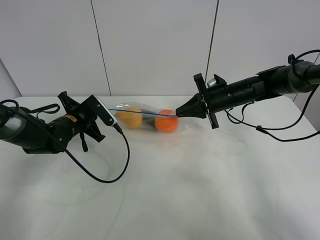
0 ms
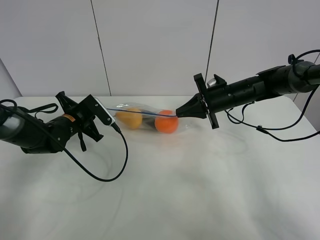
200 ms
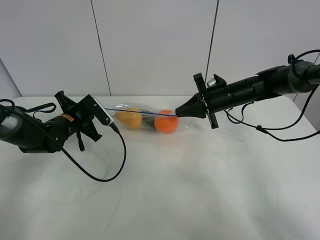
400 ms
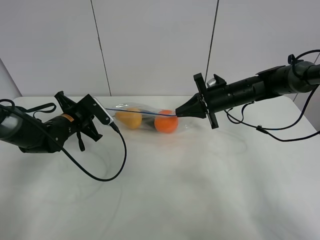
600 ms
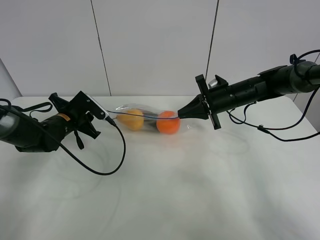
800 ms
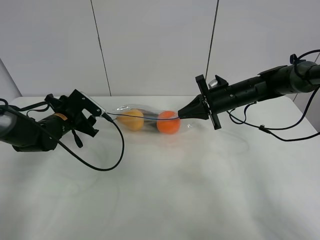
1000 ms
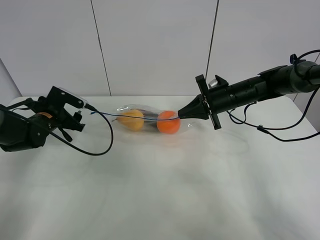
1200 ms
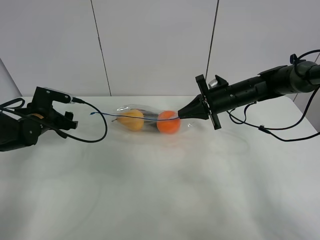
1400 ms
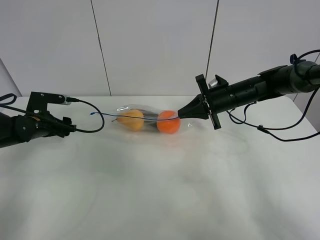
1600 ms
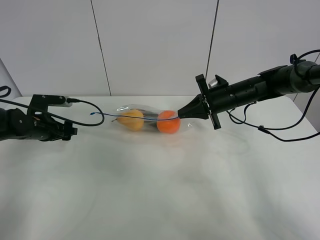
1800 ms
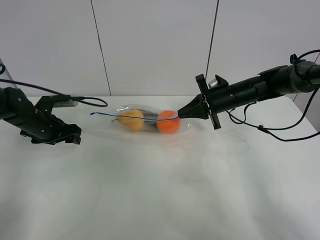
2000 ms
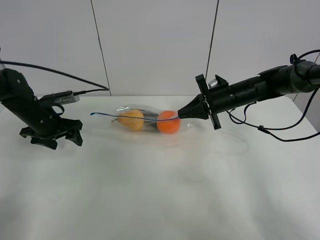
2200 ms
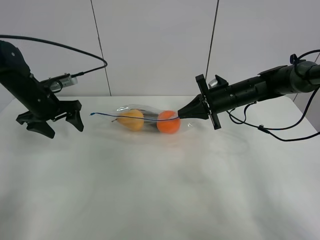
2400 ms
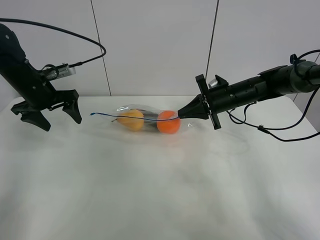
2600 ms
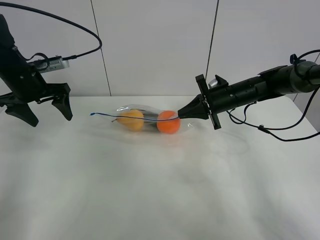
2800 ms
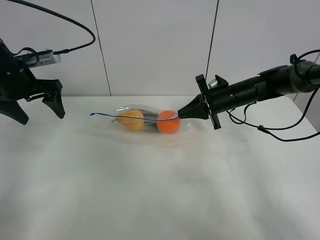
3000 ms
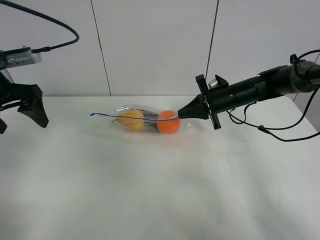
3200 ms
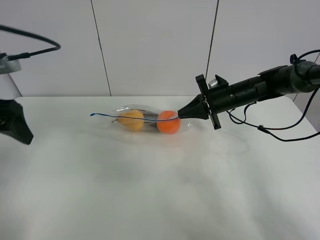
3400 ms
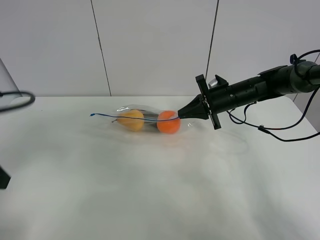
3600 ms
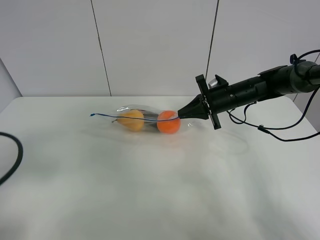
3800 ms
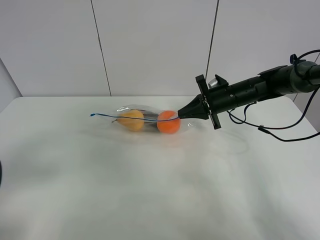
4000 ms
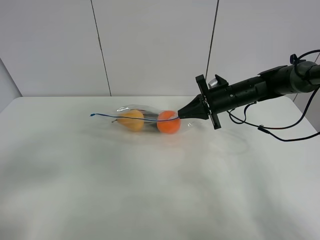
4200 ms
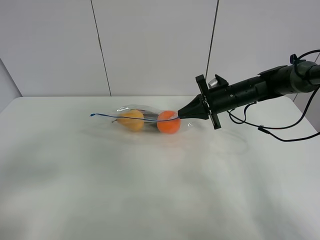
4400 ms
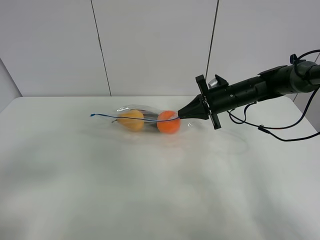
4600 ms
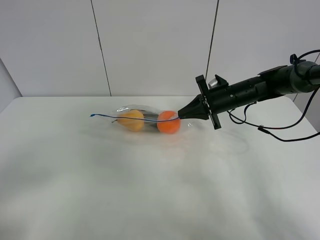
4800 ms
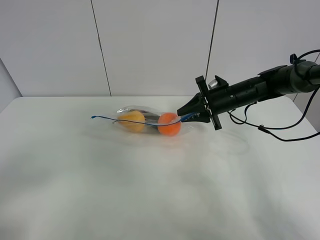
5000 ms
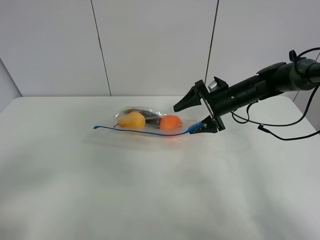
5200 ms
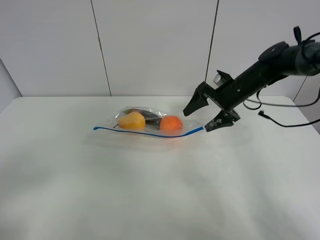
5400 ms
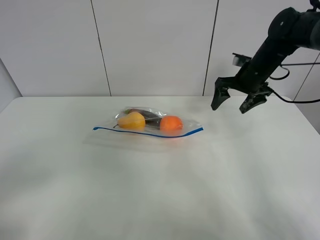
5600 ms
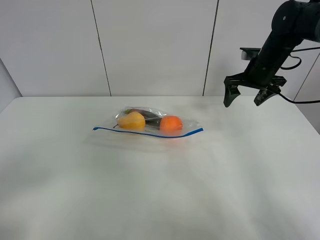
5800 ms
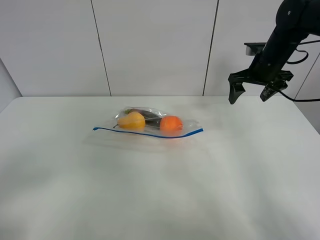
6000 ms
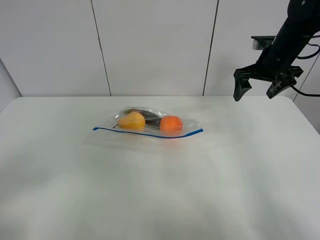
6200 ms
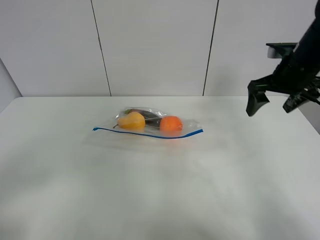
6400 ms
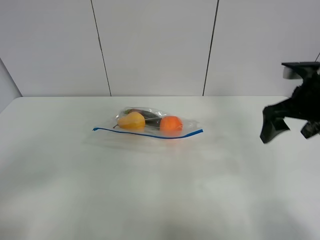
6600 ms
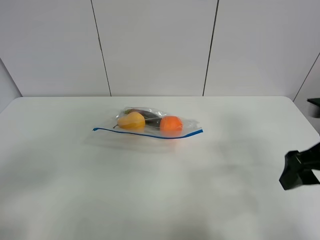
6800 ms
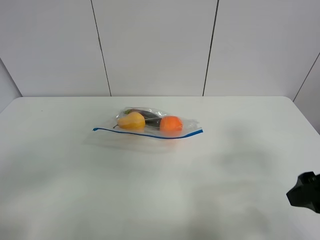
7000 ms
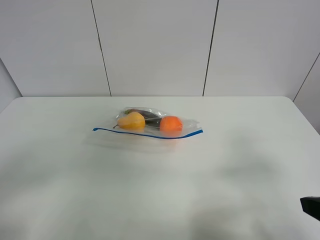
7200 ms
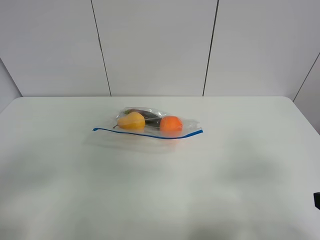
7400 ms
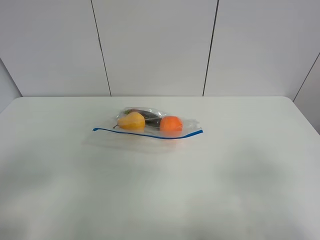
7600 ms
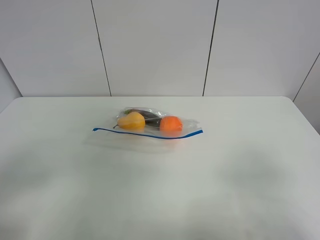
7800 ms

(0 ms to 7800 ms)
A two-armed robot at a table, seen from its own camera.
Step, 1000 ms - 5800 ms: Place the fruit bag with right gripper.
0 ms - 1600 ms: The left gripper travels to the left by roughly 10 cm, and opens its fingers.
1600 ms - 3200 ms: The left gripper goes approximately 20 cm upward and backward.
3200 ms - 4600 ms: The left gripper shifts approximately 25 cm backward.
4600 ms - 6200 ms: The right gripper heads upward and to the right, covering roughly 15 cm, and opens.
6200 ms - 7800 ms: The right gripper heads backward, covering approximately 40 cm.

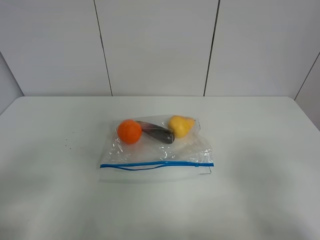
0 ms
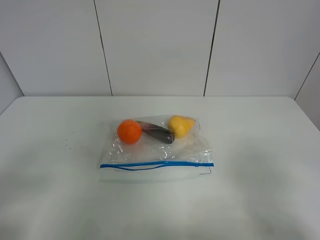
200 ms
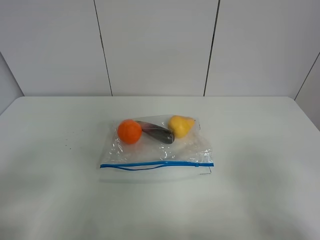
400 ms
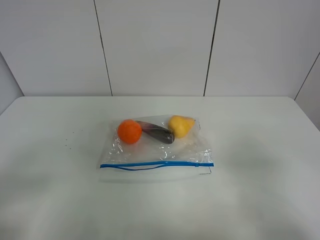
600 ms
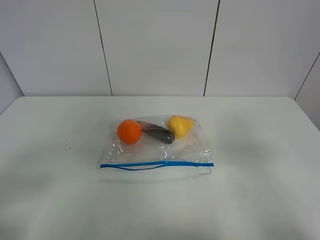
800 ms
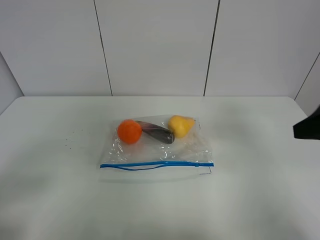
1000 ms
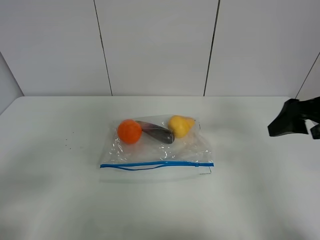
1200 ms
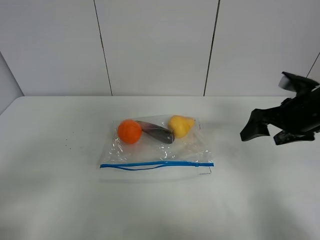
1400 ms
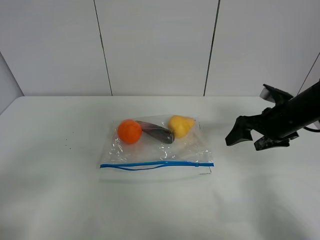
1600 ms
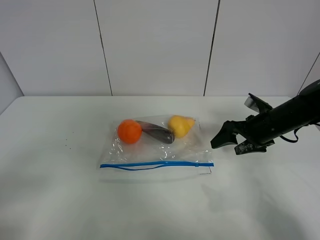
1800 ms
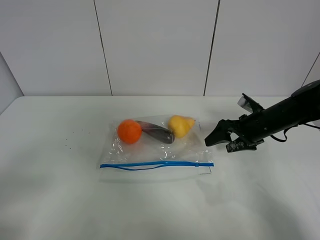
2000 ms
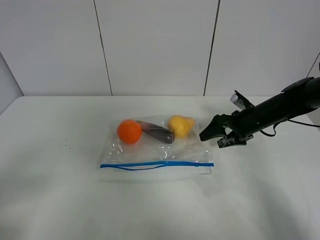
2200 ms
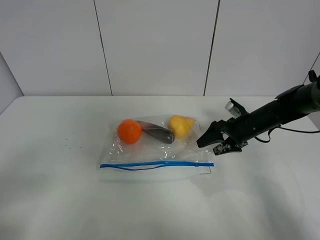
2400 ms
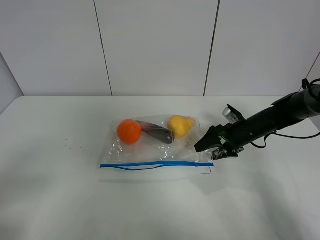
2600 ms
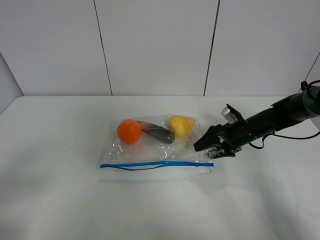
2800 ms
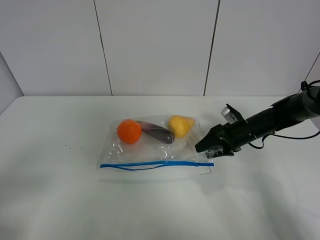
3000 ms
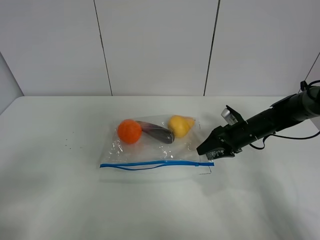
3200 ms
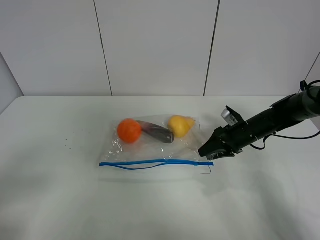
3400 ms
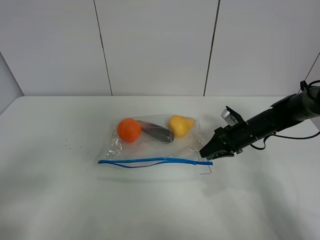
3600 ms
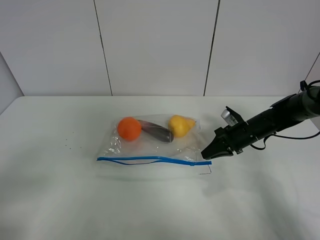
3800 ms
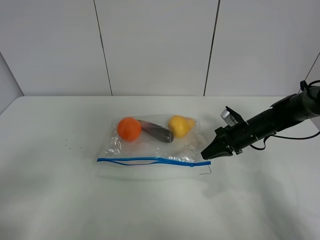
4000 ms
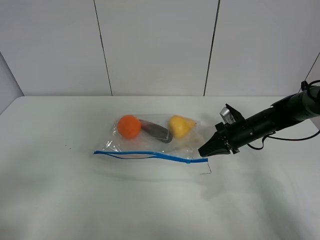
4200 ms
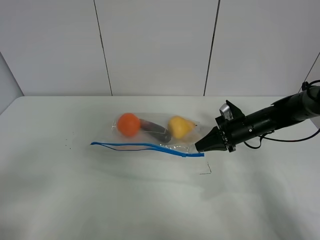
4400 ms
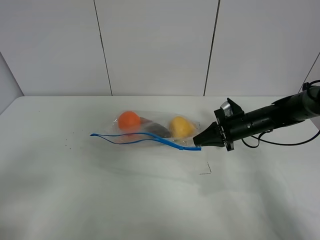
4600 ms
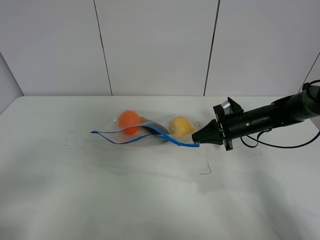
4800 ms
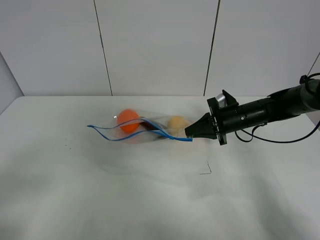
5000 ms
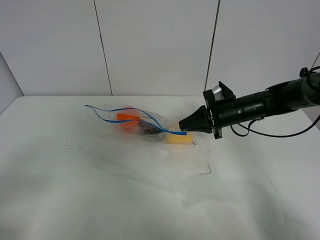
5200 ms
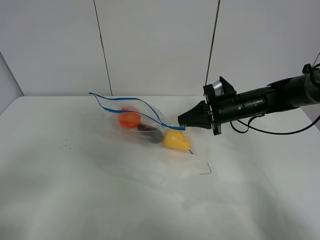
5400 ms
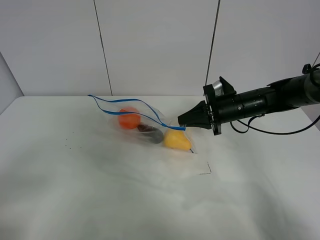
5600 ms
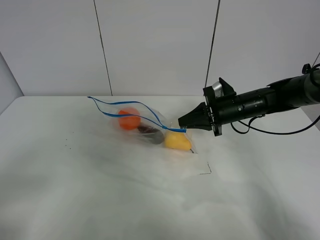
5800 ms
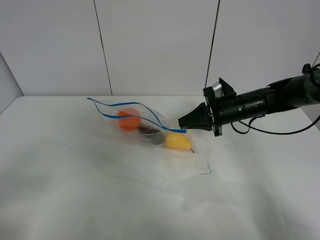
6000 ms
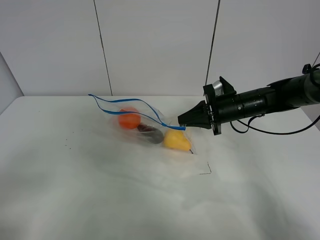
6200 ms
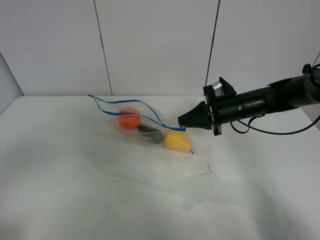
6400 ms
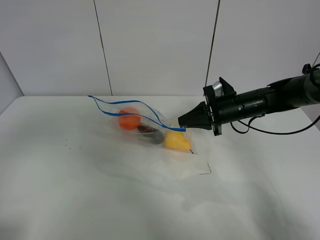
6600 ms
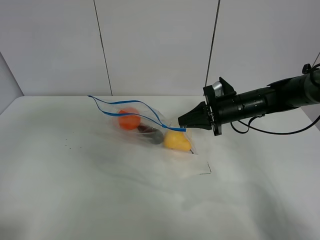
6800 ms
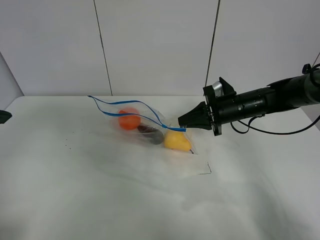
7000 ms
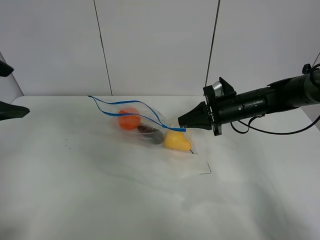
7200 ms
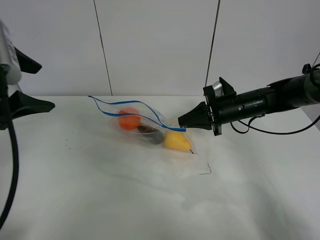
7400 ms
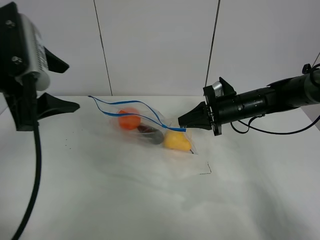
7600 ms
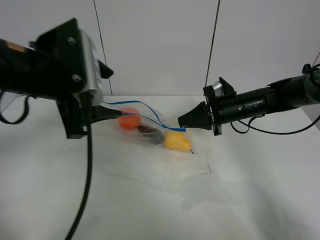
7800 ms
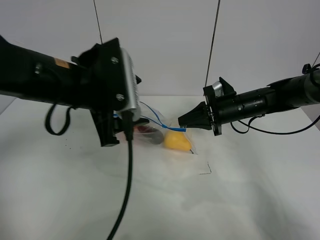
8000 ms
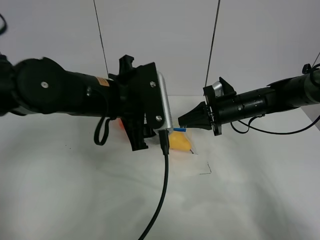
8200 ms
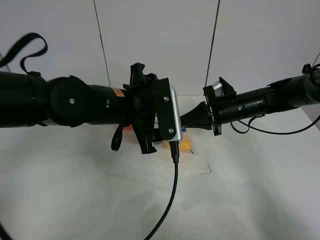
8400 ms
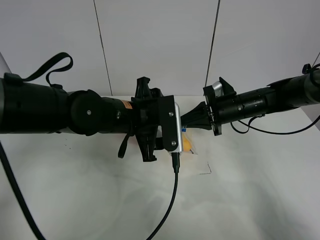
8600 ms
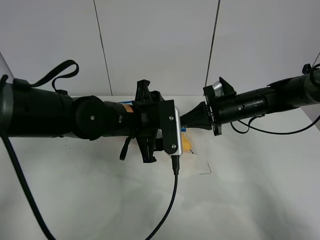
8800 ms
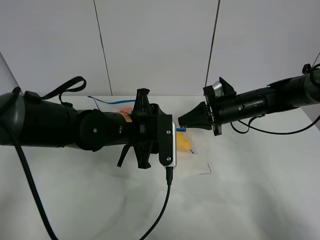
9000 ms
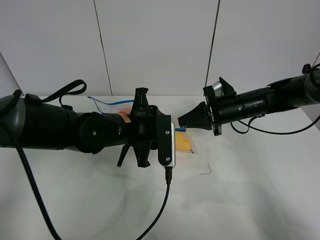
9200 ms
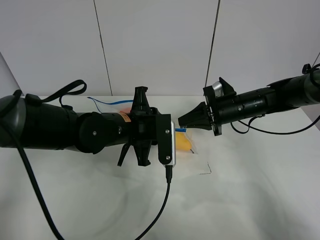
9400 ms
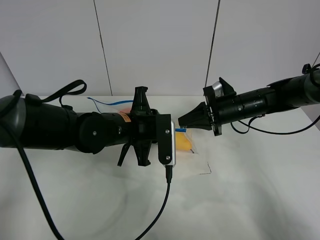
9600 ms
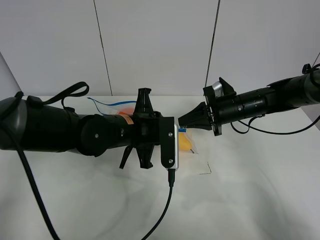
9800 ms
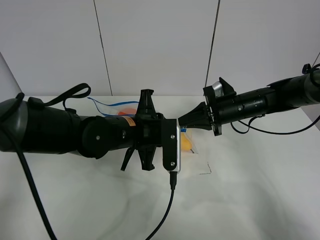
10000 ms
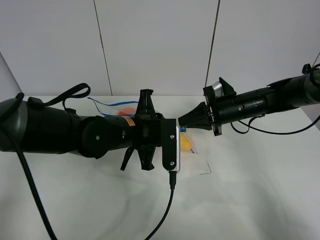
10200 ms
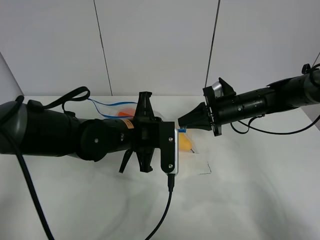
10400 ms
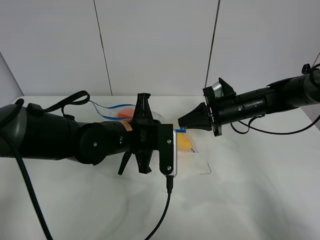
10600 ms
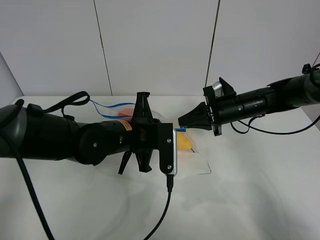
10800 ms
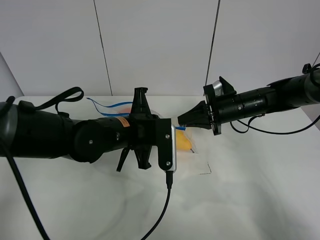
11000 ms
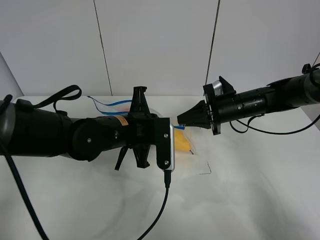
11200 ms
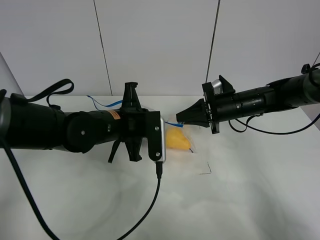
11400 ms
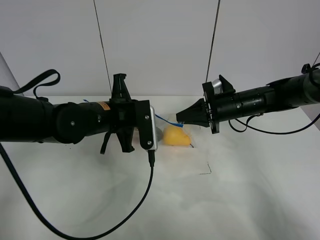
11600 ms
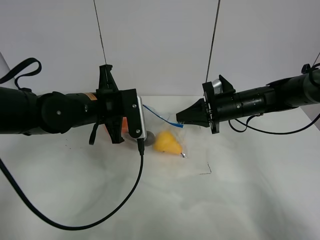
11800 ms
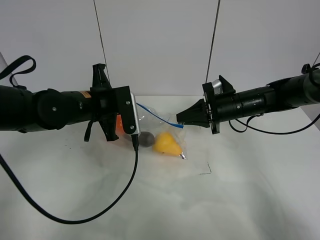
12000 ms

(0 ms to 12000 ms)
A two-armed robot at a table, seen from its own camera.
Step, 0 ms - 3800 ms: Grasp the fruit bag with right gripper.
Step, 4000 ms - 5400 ms: Lift the fruit bag with your right gripper.
0 ms - 1600 ms: The right gripper is displaced forward by approximately 30 cm.
1600 ms - 3000 ms: The right gripper travels downward and forward by about 10 cm.
3000 ms - 4400 ms: The right gripper closes up.
4400 ms - 6000 ms: The right gripper goes approximately 5 cm upward.
6000 ms - 7600 ms: The left gripper is displaced forward and to the right by approximately 25 cm.
7600 ms - 9000 ms: The left gripper moves downward and to the right, approximately 20 cm.
9000 ms - 10400 ms: The left gripper closes.
10400 ms - 12000 ms: The left gripper travels to the left by about 10 cm.

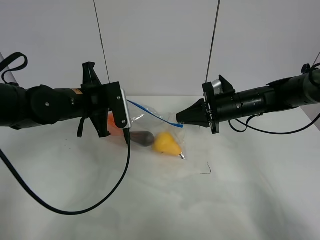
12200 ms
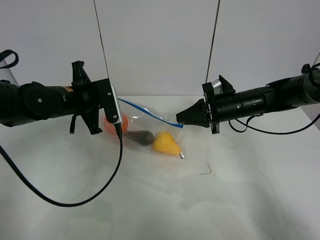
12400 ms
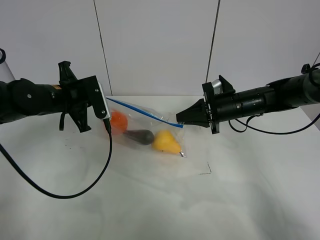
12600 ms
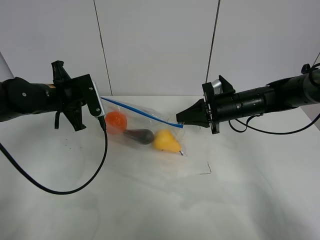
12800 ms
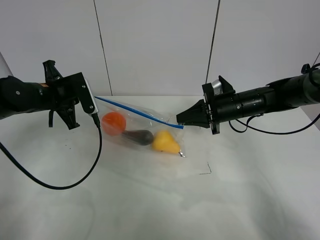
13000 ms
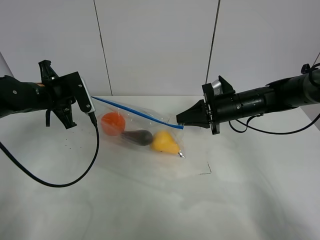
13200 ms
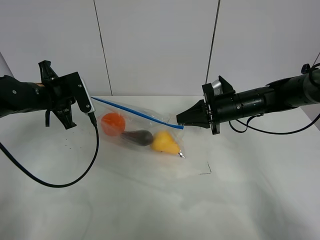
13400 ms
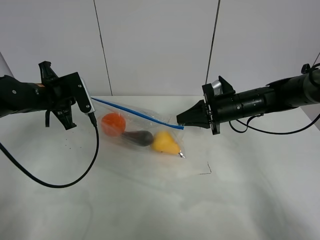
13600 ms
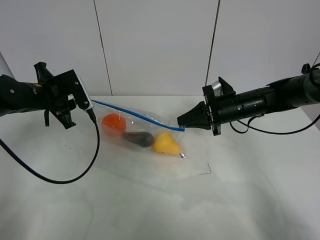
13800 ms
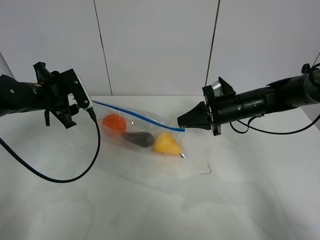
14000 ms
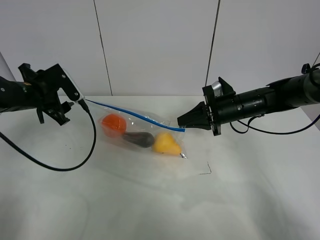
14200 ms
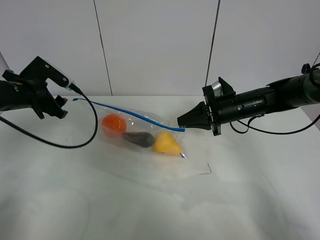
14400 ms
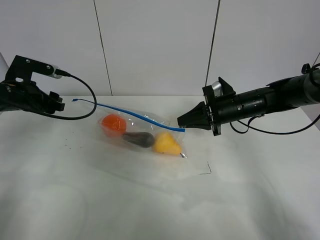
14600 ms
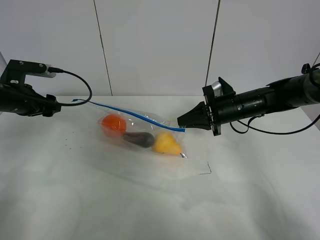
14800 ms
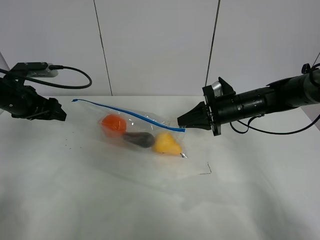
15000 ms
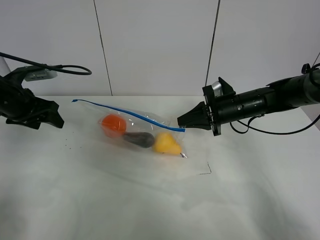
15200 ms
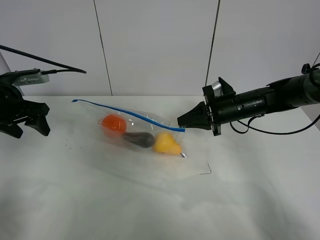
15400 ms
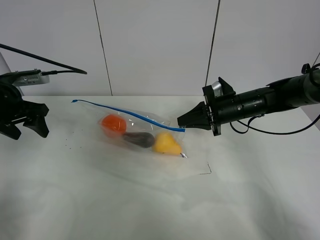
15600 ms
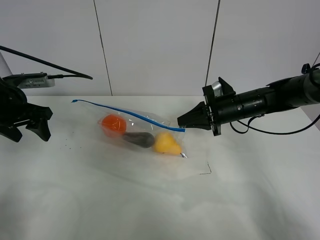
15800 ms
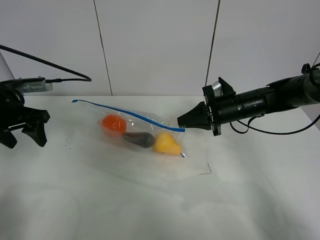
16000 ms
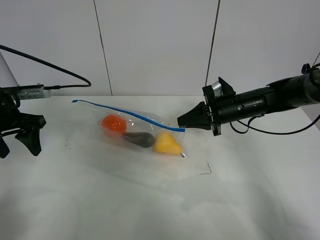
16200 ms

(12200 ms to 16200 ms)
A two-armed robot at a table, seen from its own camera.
12200 ms - 13600 ms: The left gripper travels to the left by approximately 10 cm.
13600 ms - 14800 ms: The left gripper shifts approximately 10 cm to the left, and opens.
14800 ms - 16200 ms: The left gripper ends up about 5 cm from where it was.
